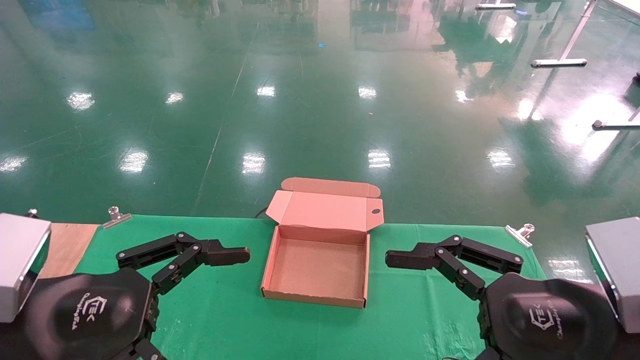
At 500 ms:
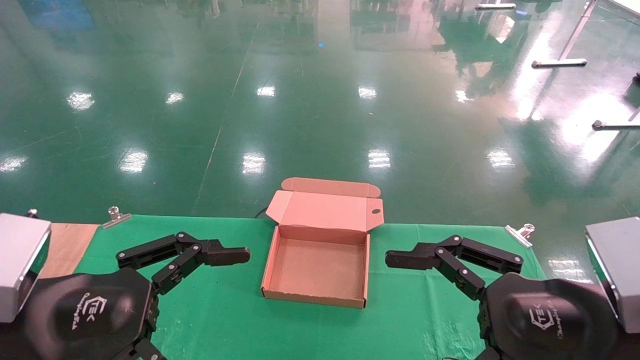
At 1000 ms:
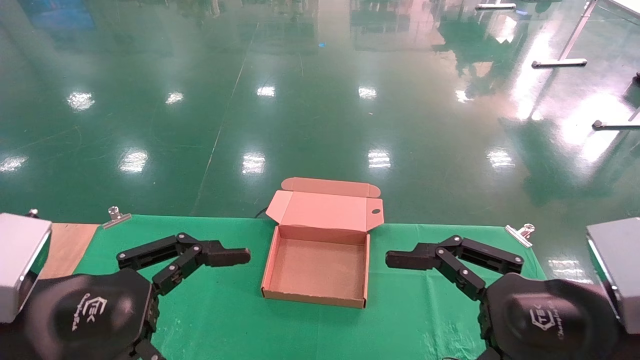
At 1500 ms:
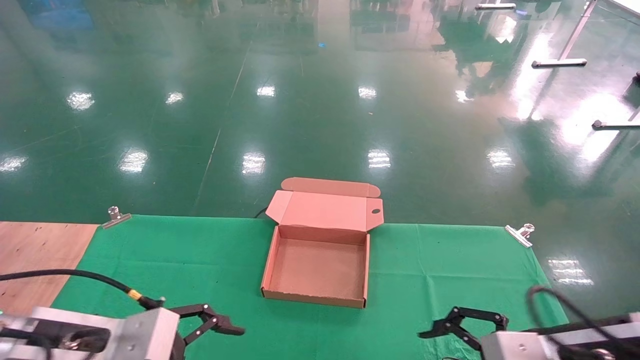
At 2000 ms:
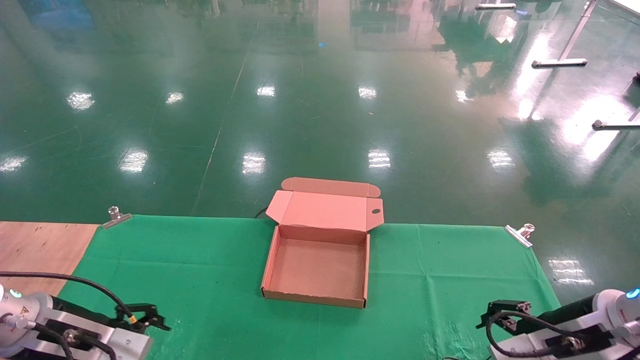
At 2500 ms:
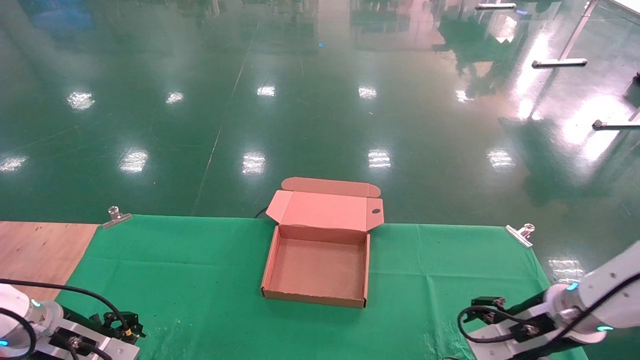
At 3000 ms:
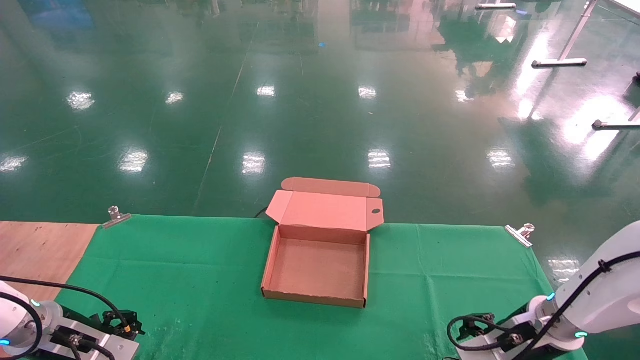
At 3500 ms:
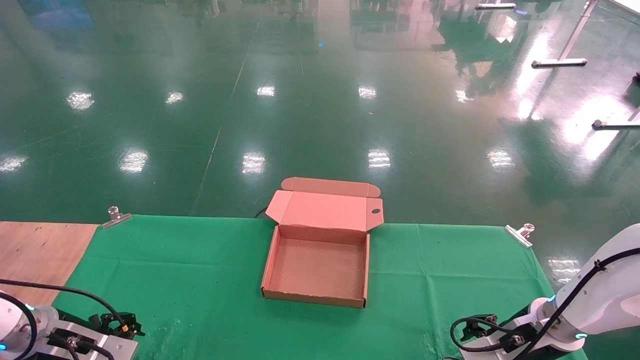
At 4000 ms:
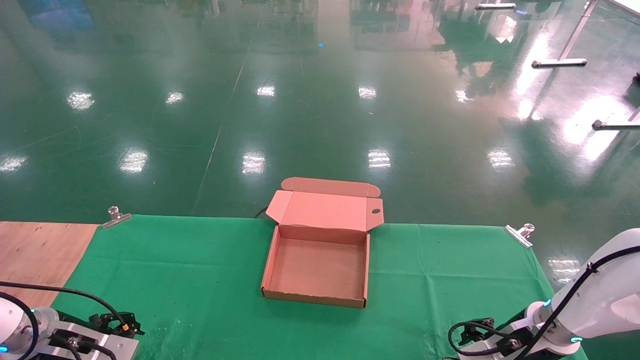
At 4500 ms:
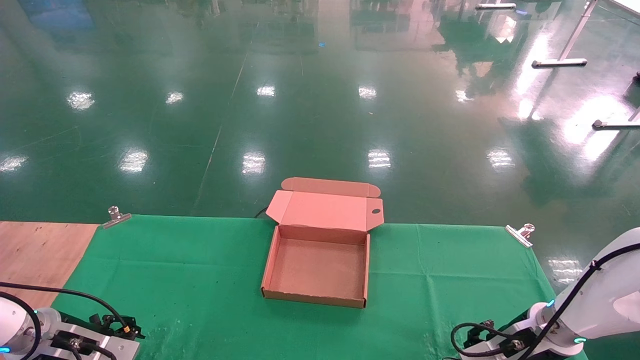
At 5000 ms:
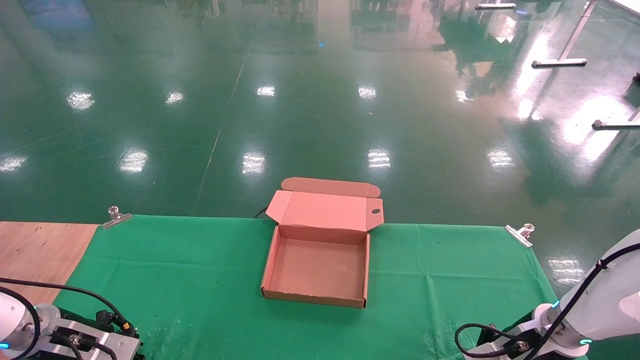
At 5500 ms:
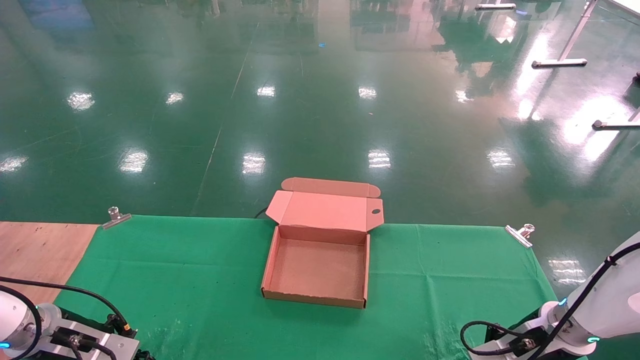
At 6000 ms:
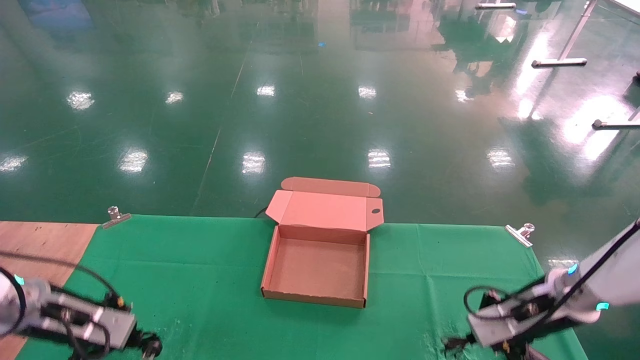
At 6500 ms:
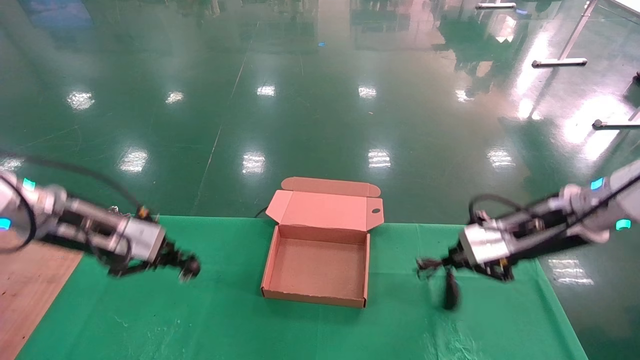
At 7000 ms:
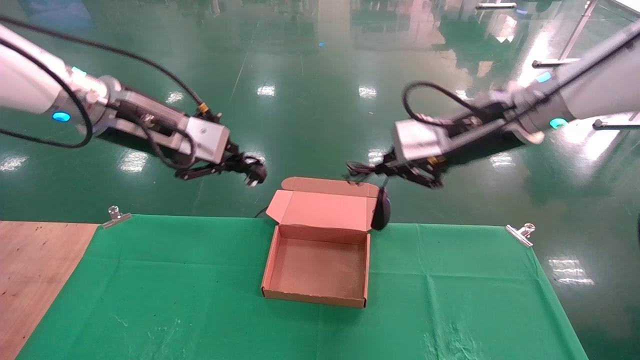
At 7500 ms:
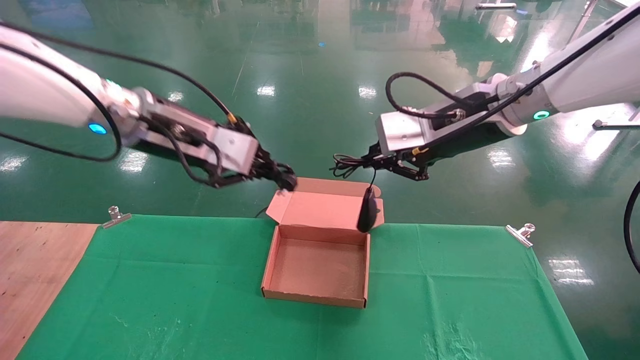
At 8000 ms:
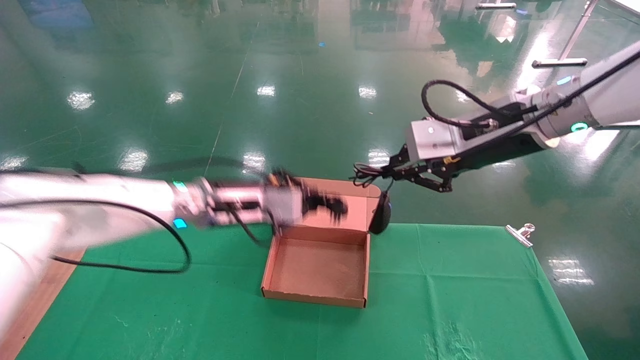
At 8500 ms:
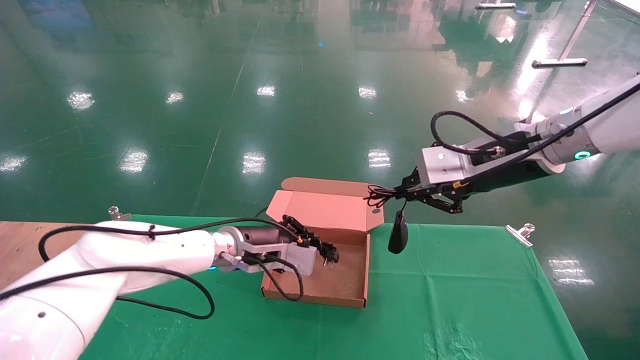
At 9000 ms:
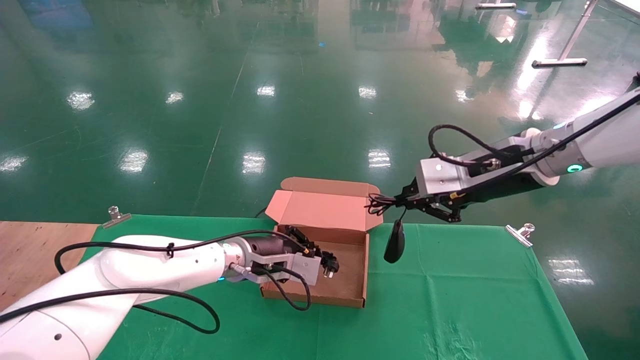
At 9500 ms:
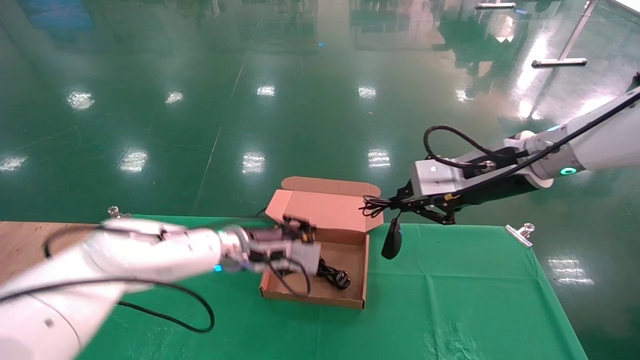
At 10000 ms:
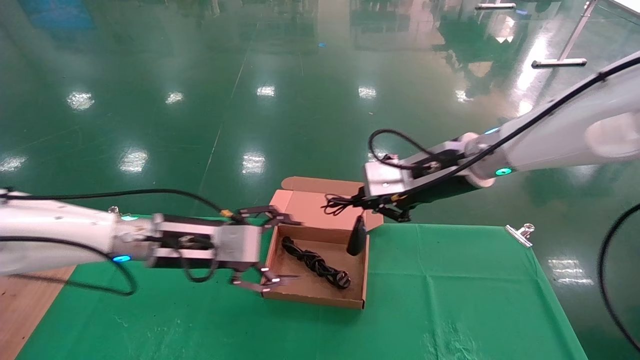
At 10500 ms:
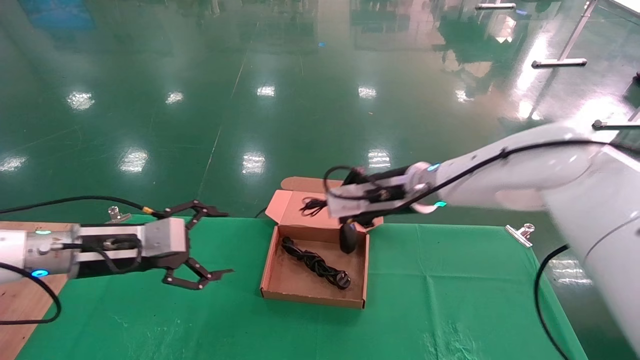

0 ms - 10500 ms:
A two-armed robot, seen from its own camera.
Step, 0 ms - 7000 ms: Grab and lift both the mouse and power cord from the accessory packaging area at the same time.
0 ms - 2000 ms: The left gripper shifts some 20 cm forward, downward and to the left. The right gripper shifts roughly 15 cm forward and downward.
2000 ms - 4000 ms: The left gripper moves to the left, downward and forward, about 10 cm. Meanwhile the right gripper heads forward and downward, covering about 15 cm.
4000 ms - 6500 ms: The two grippers go about 20 cm upward. The left gripper closes, while the right gripper closes its fingers.
6500 ms - 8500 ms: The left gripper heads to the right, downward and forward, covering approximately 25 cm. The right gripper heads upward and to the left, covering roughly 10 cm.
8500 ms - 10500 ms: The right gripper goes roughly 15 cm to the left, downward and forward, while the left gripper shifts approximately 20 cm to the left and backward, and opens its fingers.

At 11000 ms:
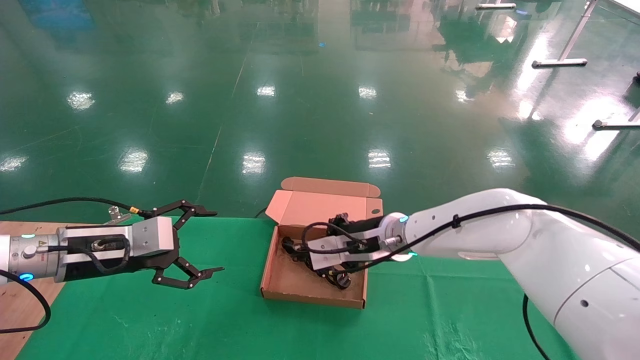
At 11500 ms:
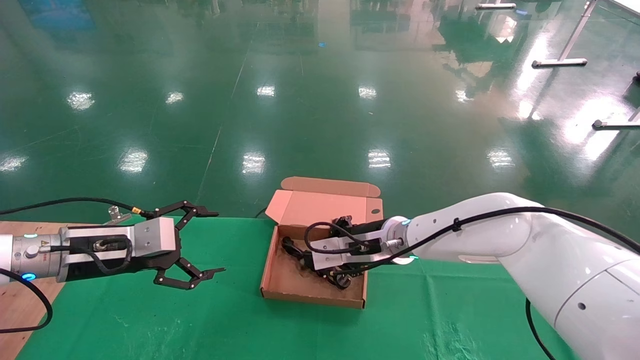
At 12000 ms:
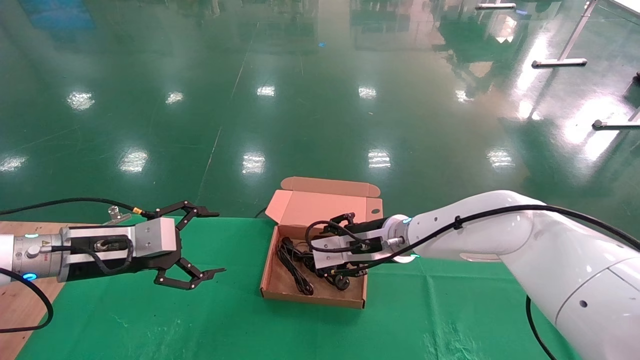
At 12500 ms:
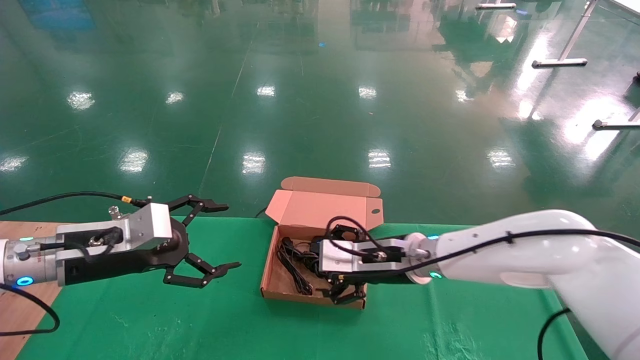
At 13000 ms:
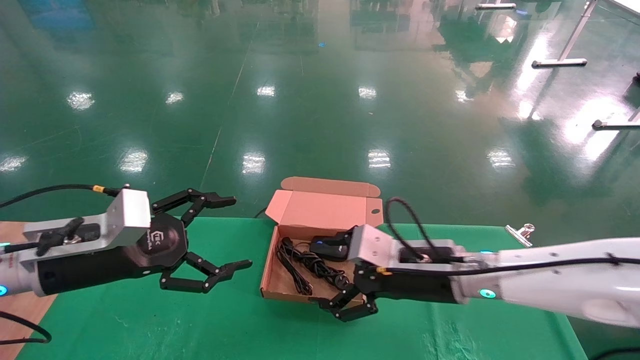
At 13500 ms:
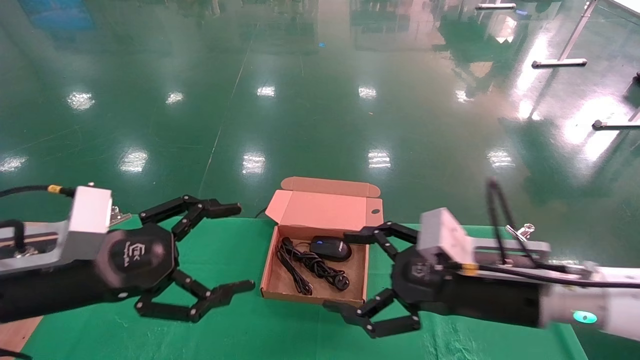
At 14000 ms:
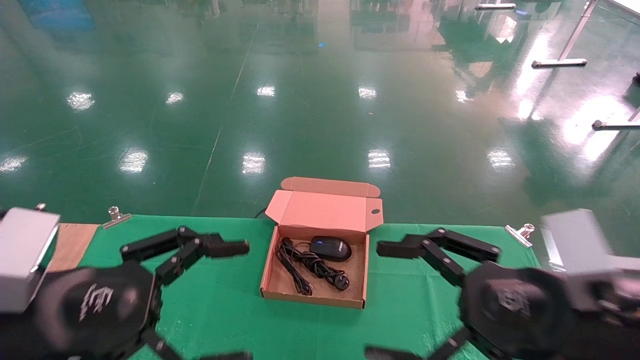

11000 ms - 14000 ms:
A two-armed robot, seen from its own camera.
Step, 11000 ms - 14000 ms: Place the mouse and power cord into the box.
11000 ms - 12500 ms: The right gripper opens its fingers.
12500 ms - 14000 ms: The right gripper travels backward and to the right by about 25 cm; the left gripper moves backward, some 15 cm.
